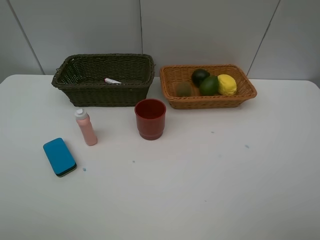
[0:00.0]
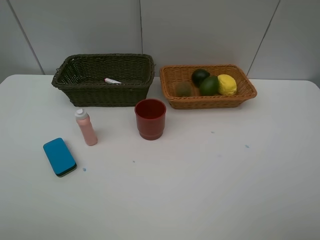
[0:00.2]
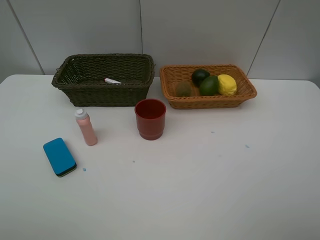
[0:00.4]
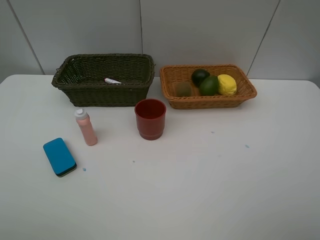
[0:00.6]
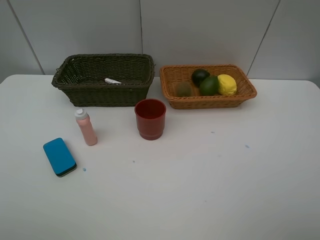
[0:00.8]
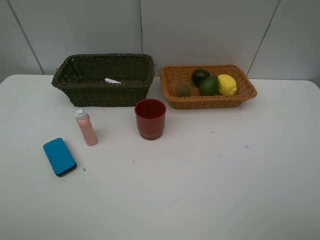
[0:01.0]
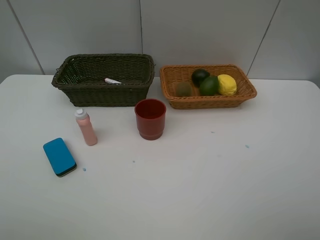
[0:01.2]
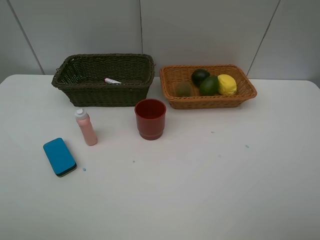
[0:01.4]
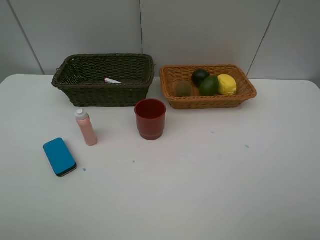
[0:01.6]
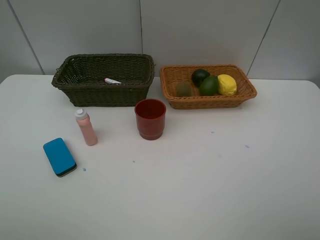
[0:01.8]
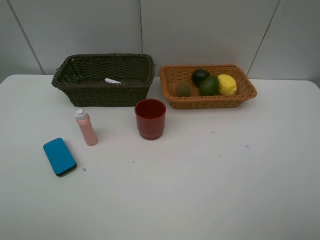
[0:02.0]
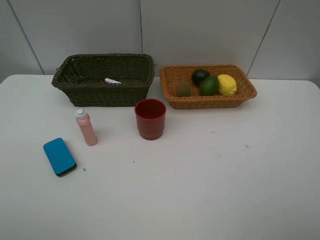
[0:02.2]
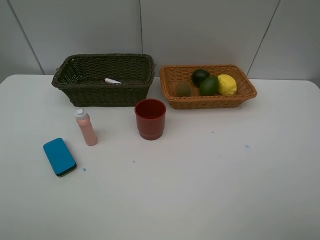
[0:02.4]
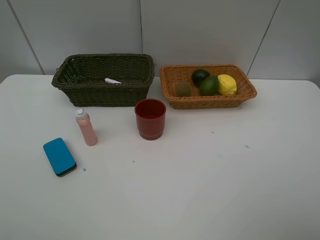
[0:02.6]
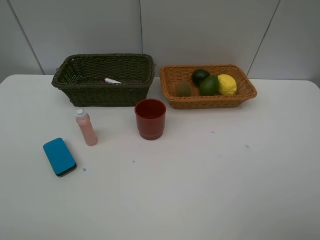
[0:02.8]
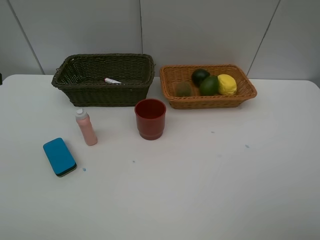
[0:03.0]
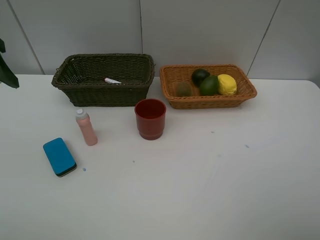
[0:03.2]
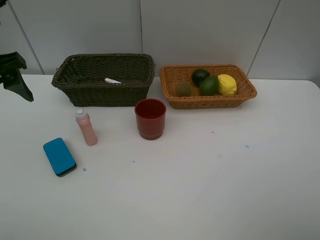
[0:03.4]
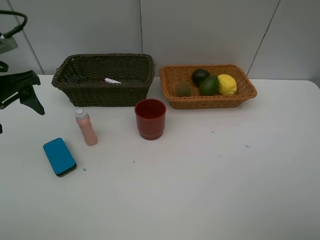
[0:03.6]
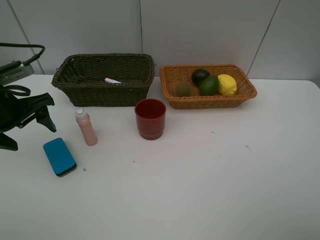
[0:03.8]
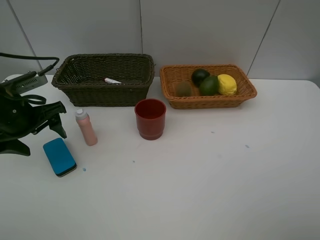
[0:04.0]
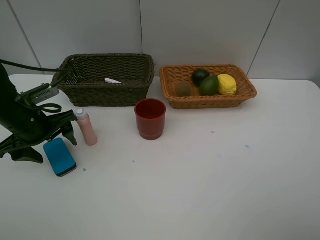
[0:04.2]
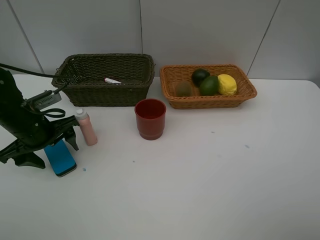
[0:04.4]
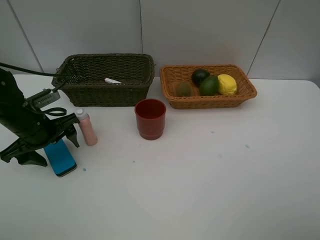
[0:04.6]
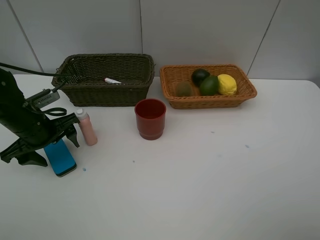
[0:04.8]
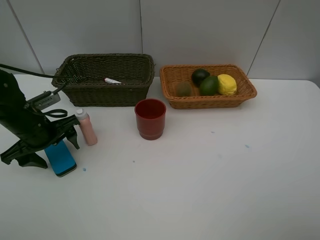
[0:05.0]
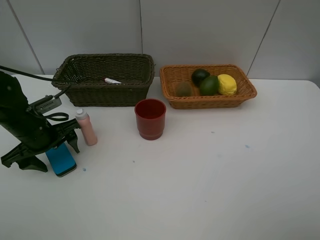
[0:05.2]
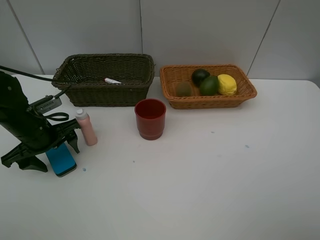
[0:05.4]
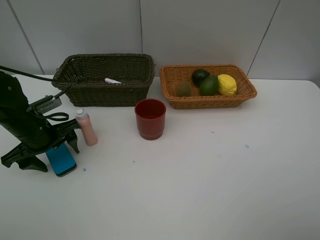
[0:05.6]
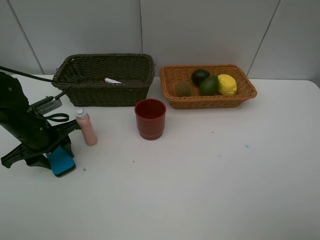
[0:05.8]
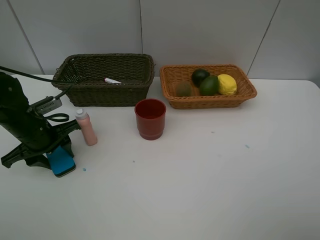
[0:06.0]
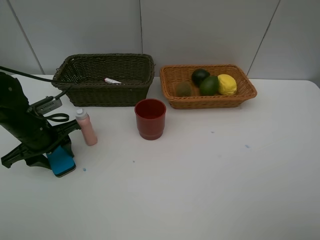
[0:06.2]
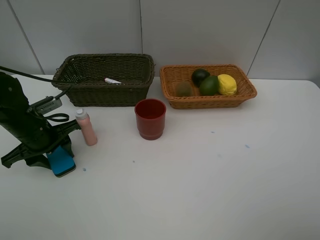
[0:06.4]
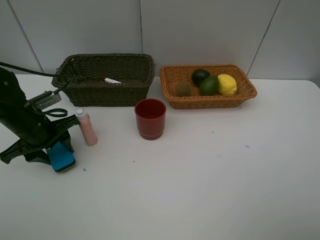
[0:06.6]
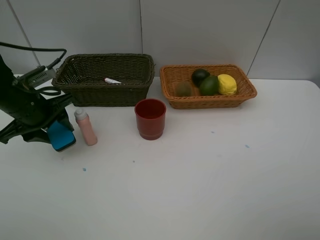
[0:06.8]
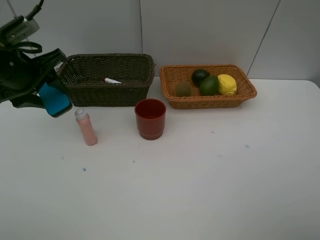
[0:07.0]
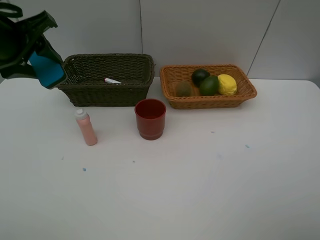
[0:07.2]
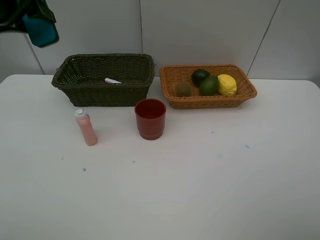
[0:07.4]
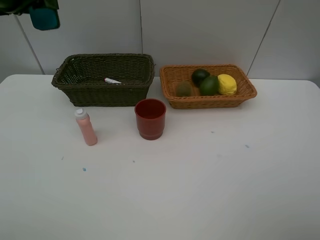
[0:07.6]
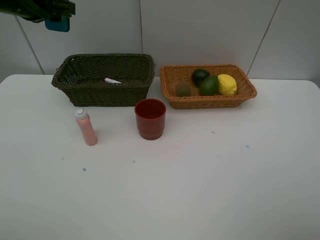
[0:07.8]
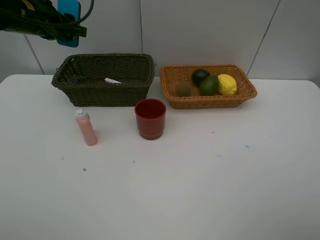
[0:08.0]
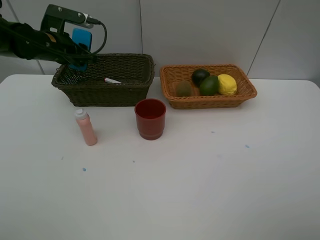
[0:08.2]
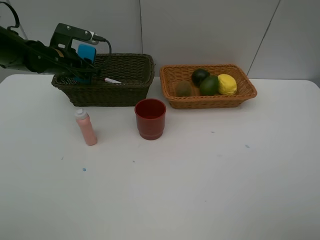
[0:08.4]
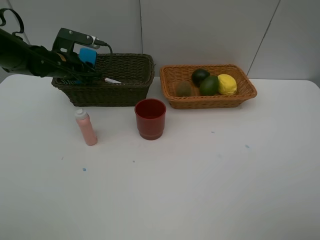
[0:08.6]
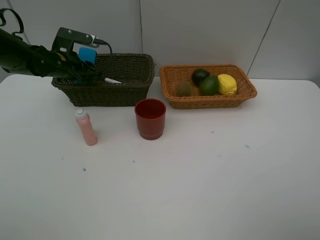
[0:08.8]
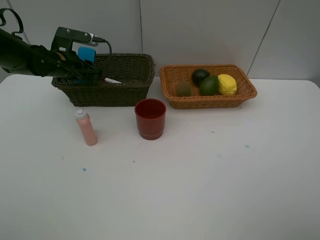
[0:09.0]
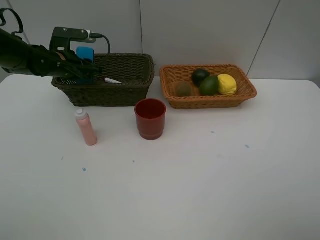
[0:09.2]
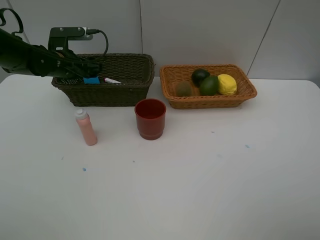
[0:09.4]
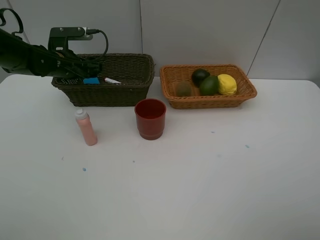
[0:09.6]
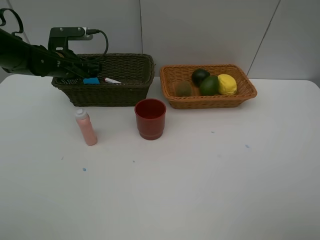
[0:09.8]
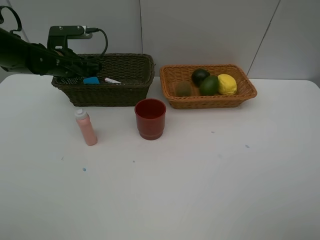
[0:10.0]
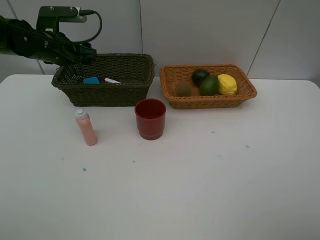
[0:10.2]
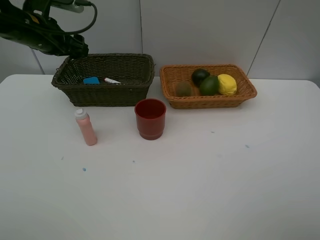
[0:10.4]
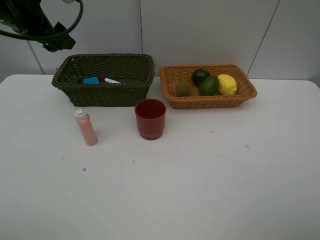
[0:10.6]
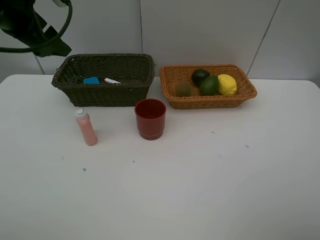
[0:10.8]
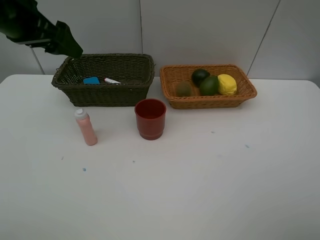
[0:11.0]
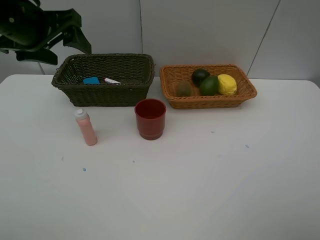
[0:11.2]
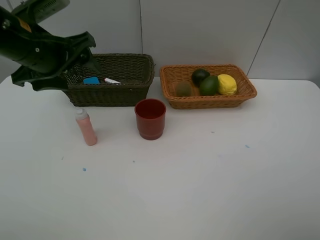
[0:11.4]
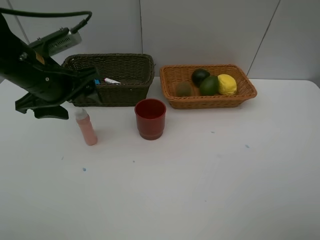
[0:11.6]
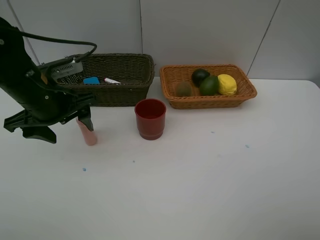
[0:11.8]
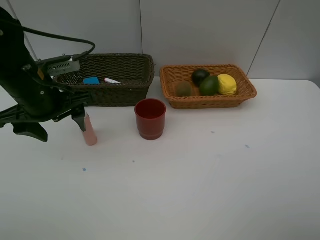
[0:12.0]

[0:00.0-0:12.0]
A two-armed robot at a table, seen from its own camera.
Task of the whole recording: Place multiple objects separately in different baskets.
Step, 0:00.0 to 0:06.8: Pick up blackboard eraser with left gripper.
Step, 0:07.0 to 0:09.6: Place the blackboard eraser in the dark basket with left gripper.
0:03.0 to 0:04.4: The left gripper moves downward, approximately 20 cm.
0:04.4 to 0:06.0: The left gripper closes.
0:06.0 to 0:07.6: The left gripper moves upward, approximately 25 cm.
0:07.6 to 0:09.0: The left gripper moves downward and forward, roughly 20 cm.
0:09.0 to 0:10.4: The left gripper is displaced upward by about 10 cm, and opens up.
0:10.4 to 0:12.0: The left gripper moves backward, roughly 10 cm.

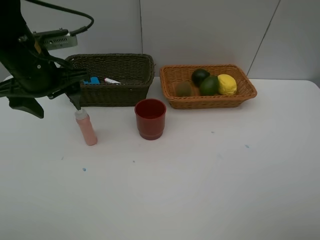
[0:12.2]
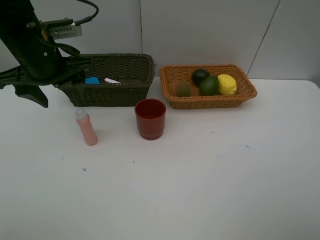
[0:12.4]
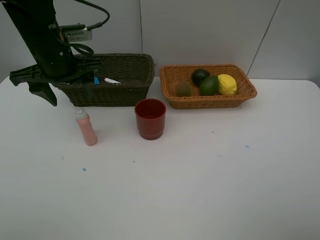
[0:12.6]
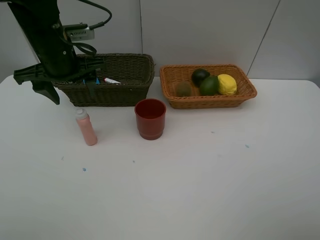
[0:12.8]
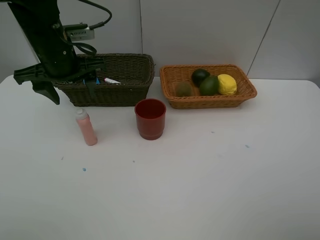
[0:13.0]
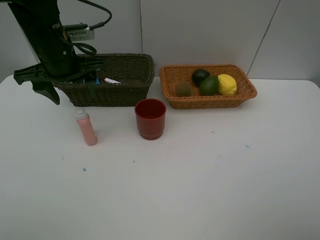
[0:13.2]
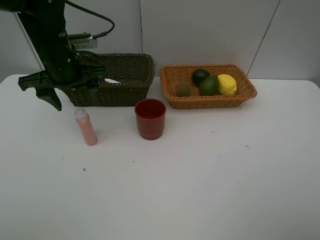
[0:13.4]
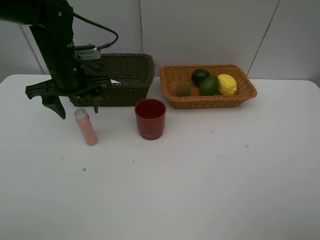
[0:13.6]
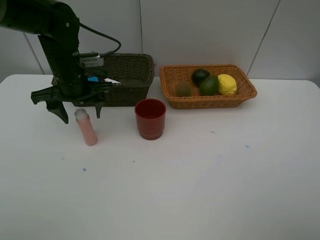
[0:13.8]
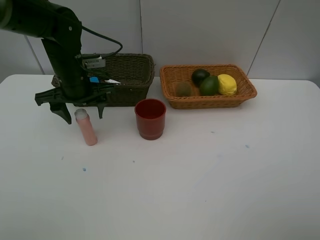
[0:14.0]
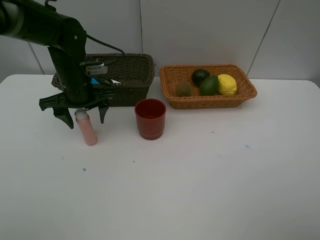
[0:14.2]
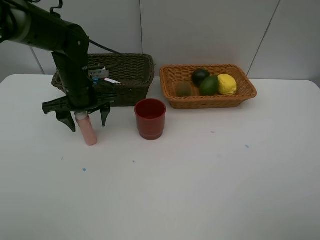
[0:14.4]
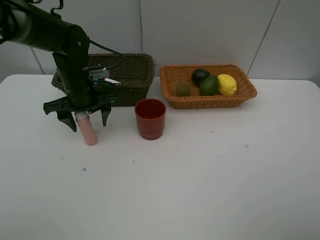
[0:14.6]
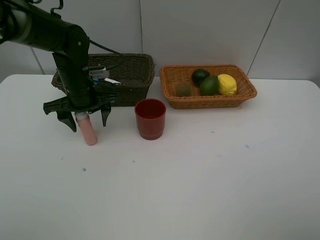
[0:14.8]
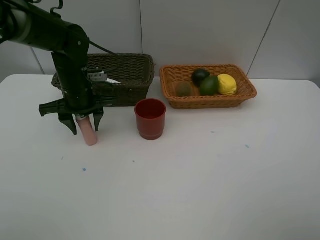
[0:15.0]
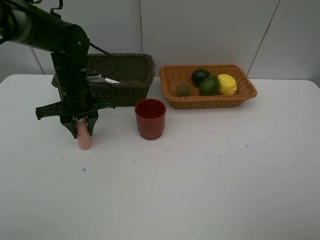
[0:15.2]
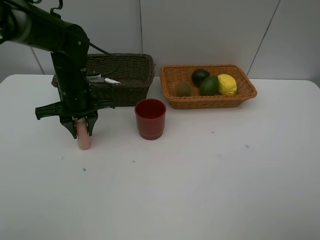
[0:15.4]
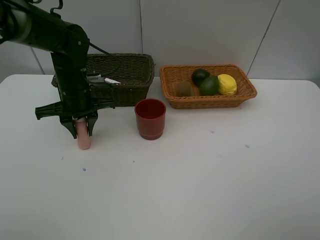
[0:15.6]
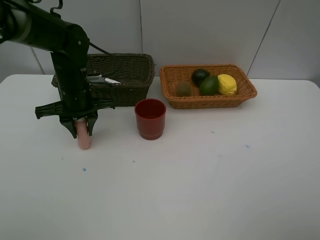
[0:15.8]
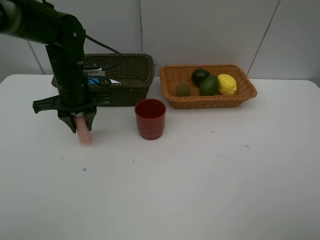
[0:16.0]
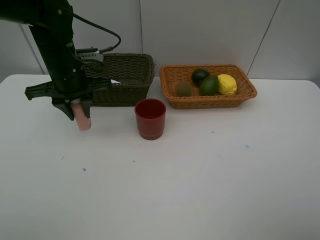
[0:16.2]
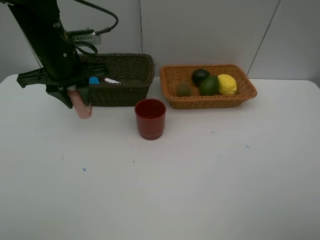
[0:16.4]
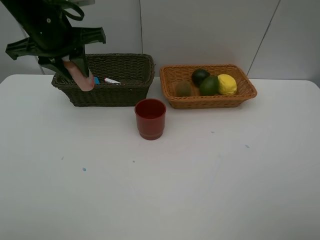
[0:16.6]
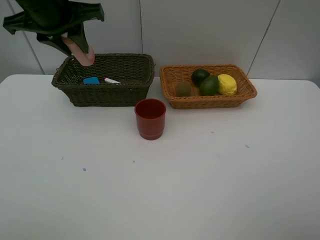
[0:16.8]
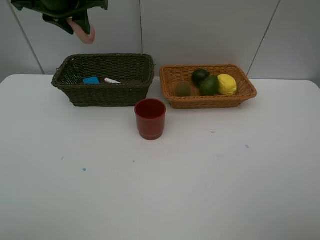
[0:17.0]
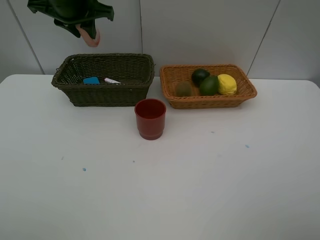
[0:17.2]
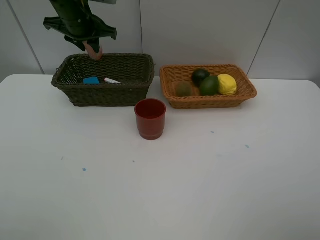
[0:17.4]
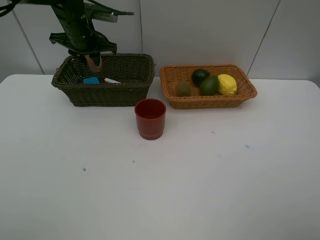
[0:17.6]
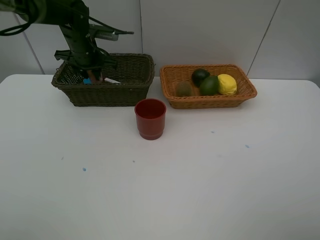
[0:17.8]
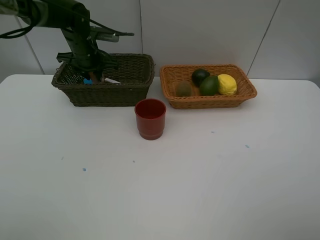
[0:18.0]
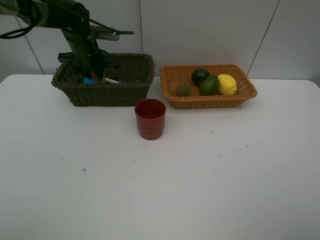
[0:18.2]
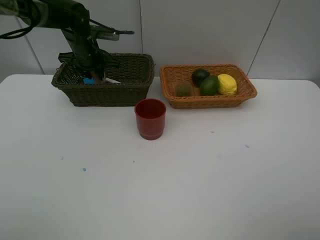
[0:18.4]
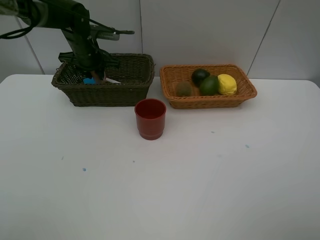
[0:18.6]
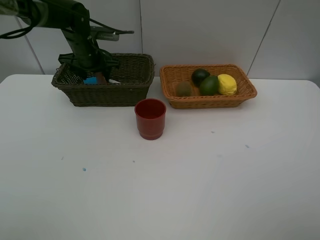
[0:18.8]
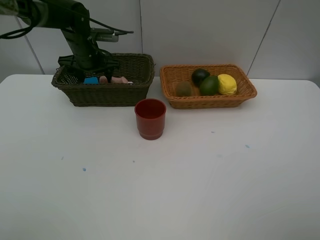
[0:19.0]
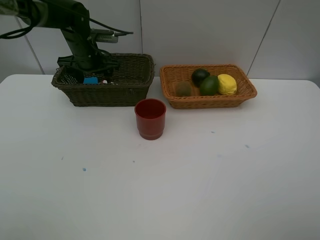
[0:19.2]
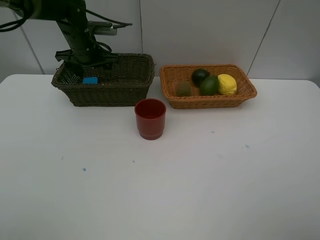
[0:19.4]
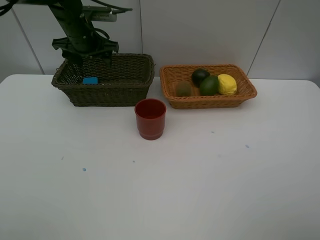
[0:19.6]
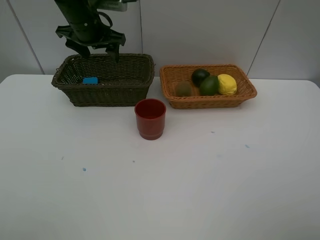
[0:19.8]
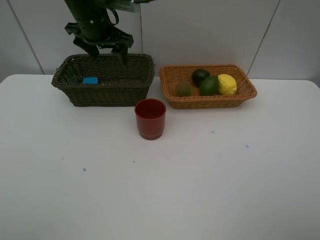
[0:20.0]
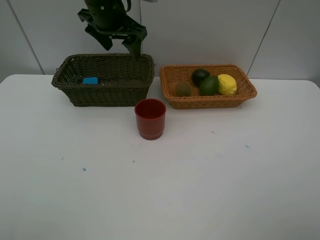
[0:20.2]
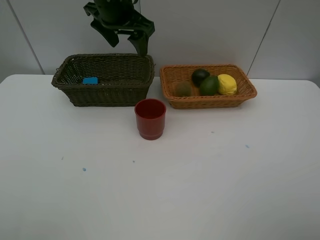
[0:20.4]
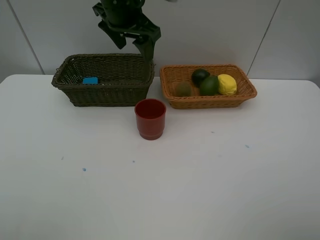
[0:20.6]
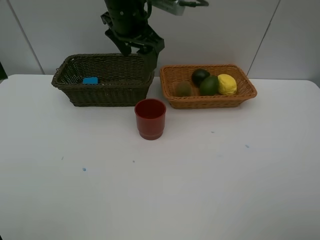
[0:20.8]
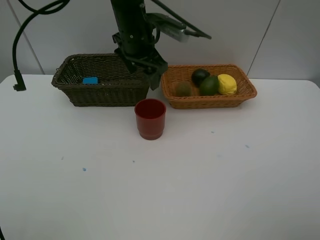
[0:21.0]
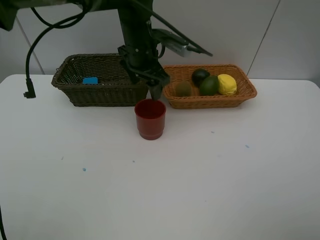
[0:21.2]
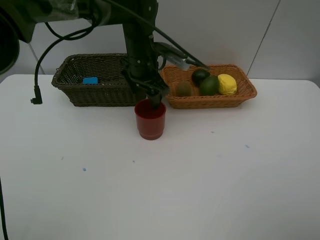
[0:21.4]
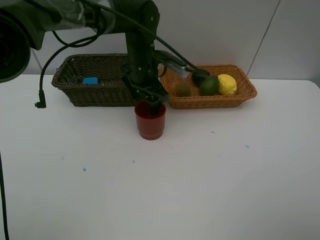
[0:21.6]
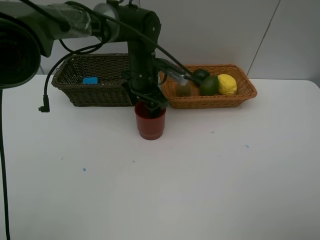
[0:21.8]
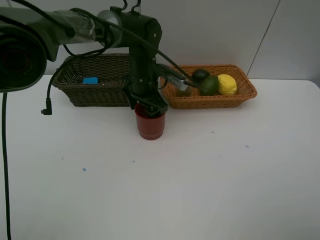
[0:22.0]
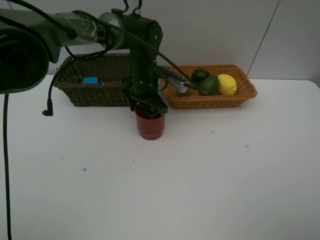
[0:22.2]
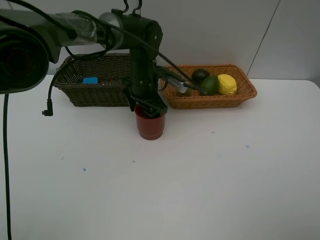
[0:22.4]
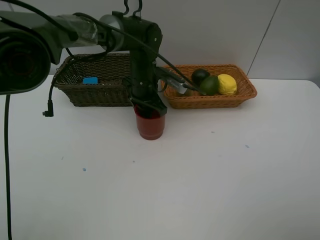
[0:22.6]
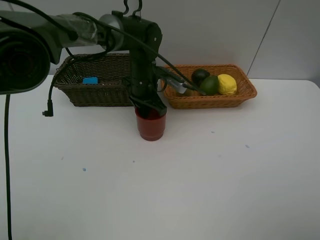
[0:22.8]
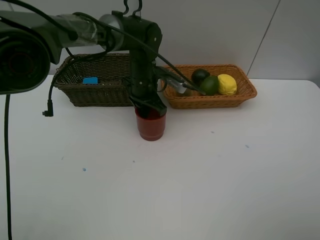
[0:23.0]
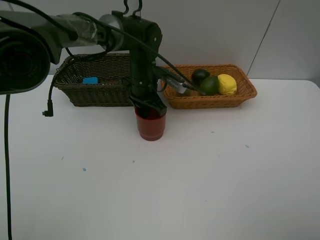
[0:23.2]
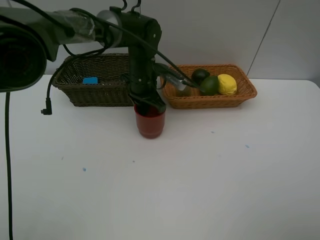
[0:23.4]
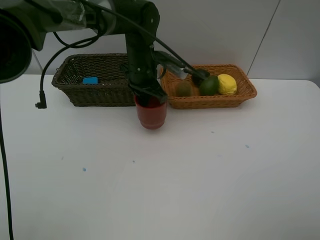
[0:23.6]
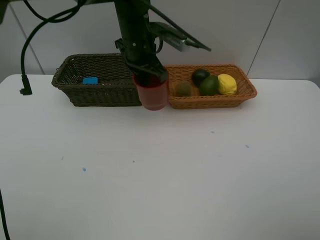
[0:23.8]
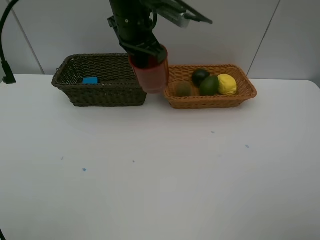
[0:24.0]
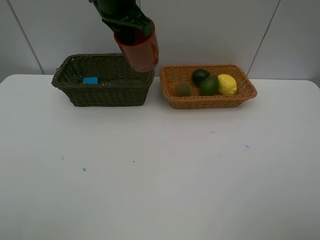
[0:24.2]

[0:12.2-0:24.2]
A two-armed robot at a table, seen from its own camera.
Task of the whole recording: Place multiple objects separately in different baskets.
Step, 0:12.2 to 0:16.0: Pick up the laundry detergent with left gripper.
Step, 0:16.2 to 0:19.6: Place the laundry detergent in the dark basket with left gripper.
Step, 0:19.8 to 0:23.6: Pick up the dark brown cup with left gripper.
0:12.2 to 0:13.8: The left gripper moves downward and forward, roughly 10 cm.
0:13.8 to 0:15.2: The left gripper closes.
0:15.2 to 0:16.6: The left gripper heads upward, covering about 15 cm.
0:16.6 to 0:18.2: The left gripper travels forward and downward by roughly 20 cm.
0:18.2 to 0:19.8: The left gripper heads upward, covering about 10 cm, and opens.
0:19.8 to 0:21.2: The left gripper travels to the right by approximately 10 cm.
0:21.2 to 0:22.6: The left gripper travels downward by about 10 cm, and closes its fingers.
0:22.6 to 0:24.2: The left gripper heads upward, covering approximately 20 cm.
